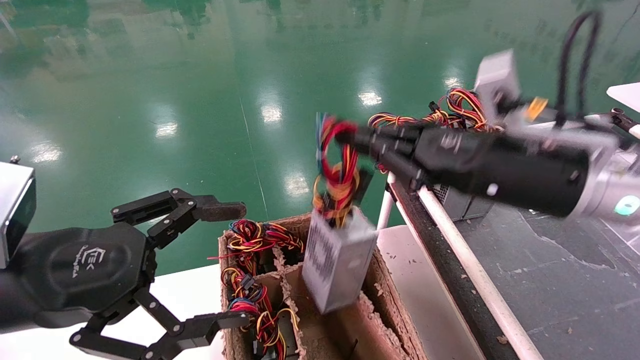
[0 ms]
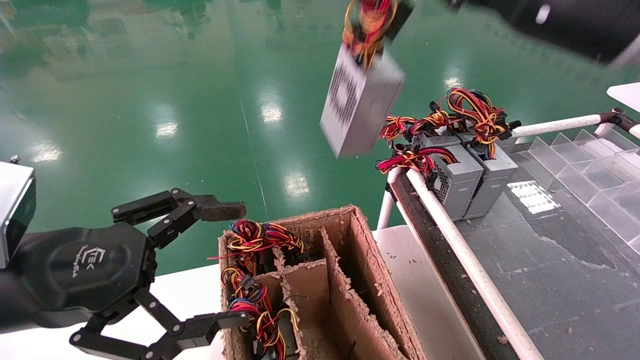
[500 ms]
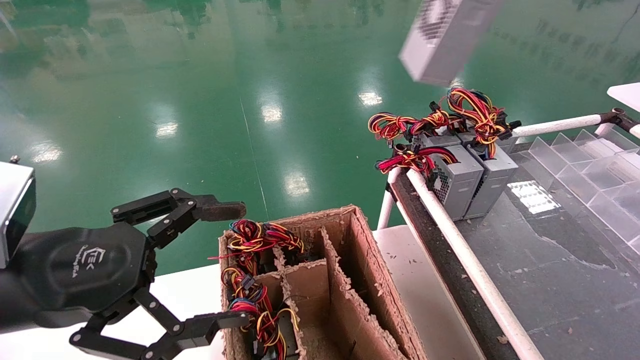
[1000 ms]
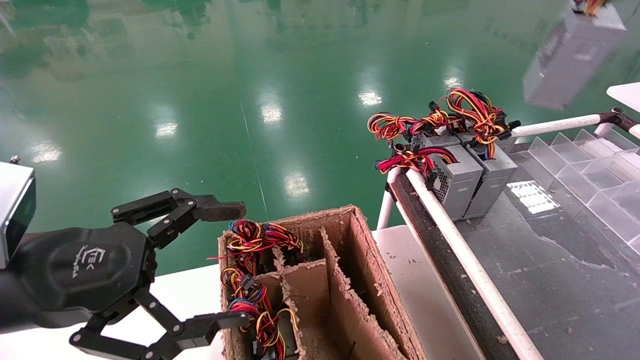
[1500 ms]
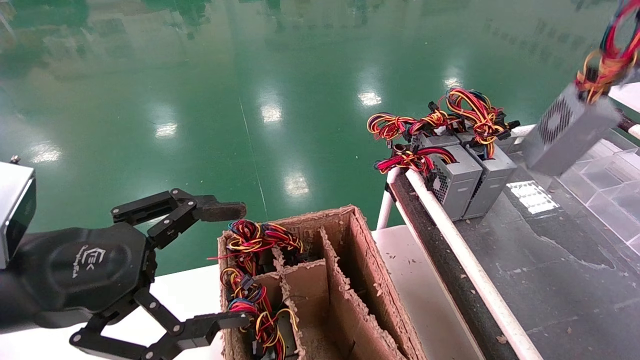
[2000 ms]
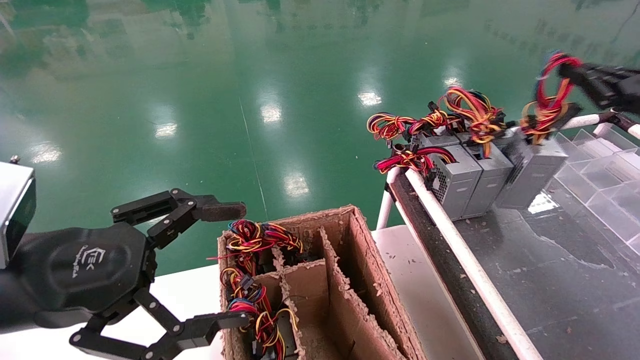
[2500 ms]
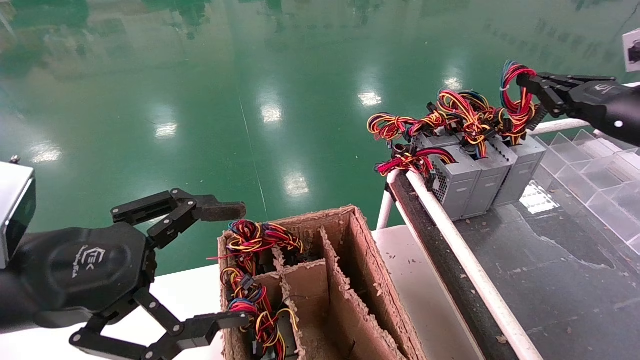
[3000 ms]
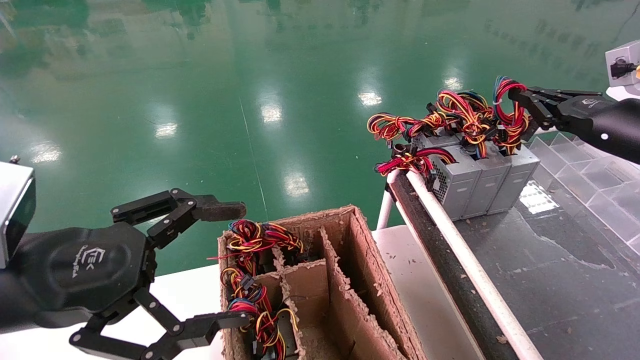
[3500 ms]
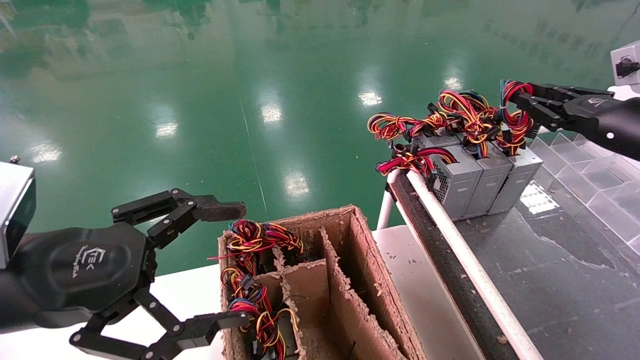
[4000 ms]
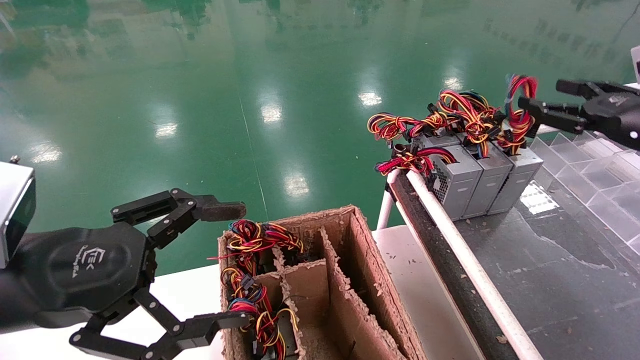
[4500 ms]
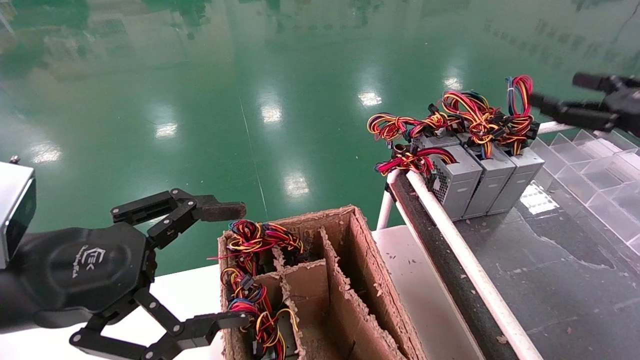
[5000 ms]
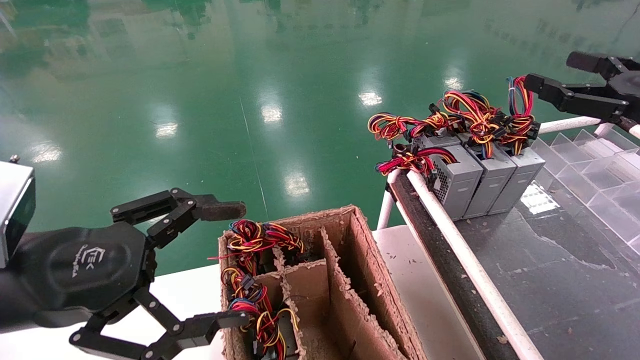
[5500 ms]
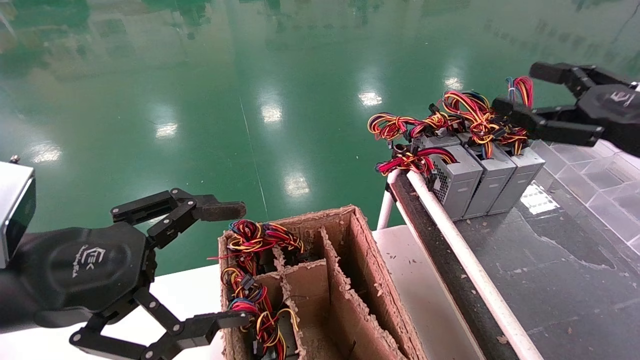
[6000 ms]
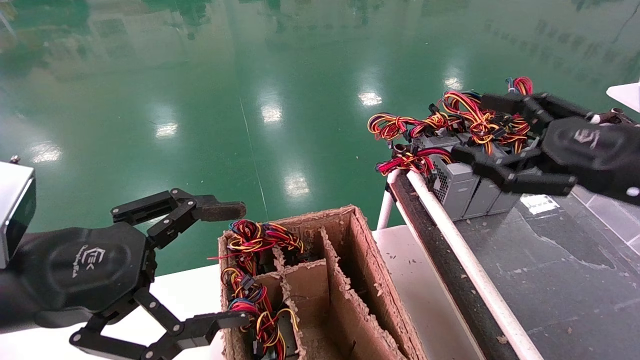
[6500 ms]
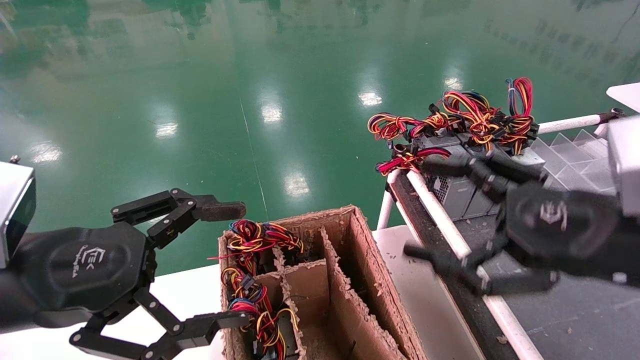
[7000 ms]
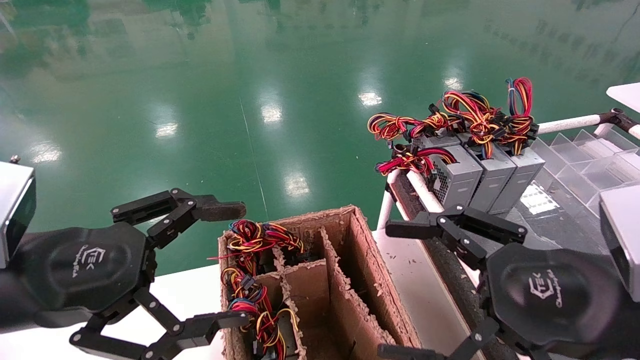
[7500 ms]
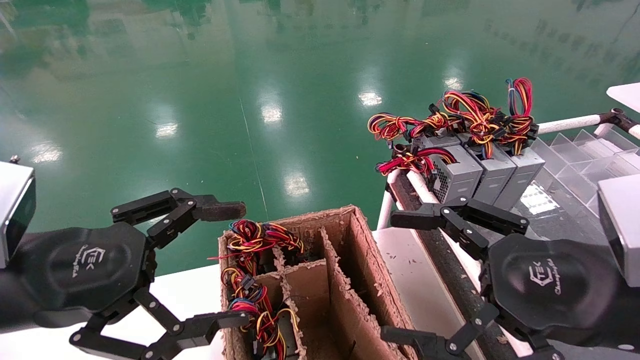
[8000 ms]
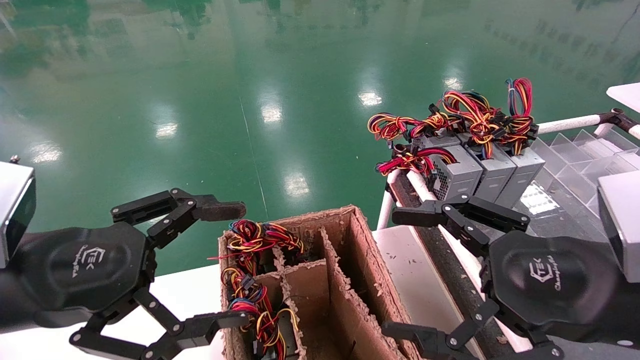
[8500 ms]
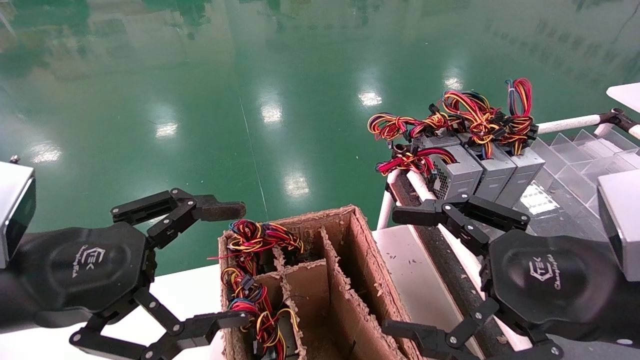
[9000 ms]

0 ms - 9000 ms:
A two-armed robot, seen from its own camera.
Step, 0 ms - 3500 ms: Place the power supply on the operating table.
0 ms - 2000 ms: The right gripper shifts some 25 cm to the right.
2000 ms - 4500 ms: The right gripper shifts approximately 10 cm downward and to the left, and opens up.
4500 ms - 7000 ms: The right gripper goes approximately 20 cm to the left and backward, and opens.
7000 ms - 9000 ms: The grippers stay close to where they were, moving slightly.
